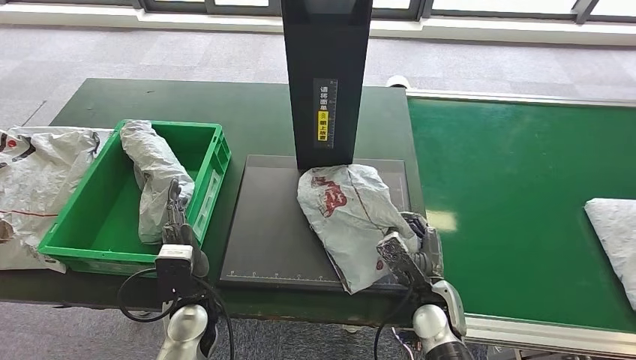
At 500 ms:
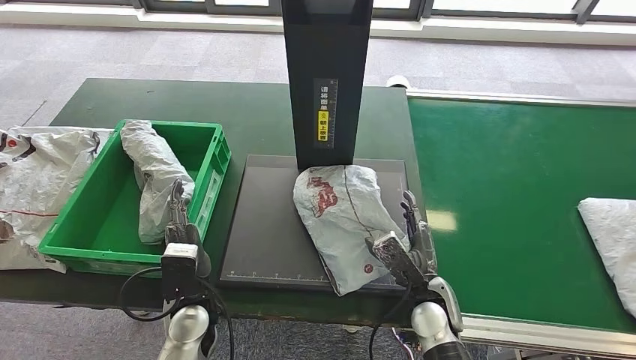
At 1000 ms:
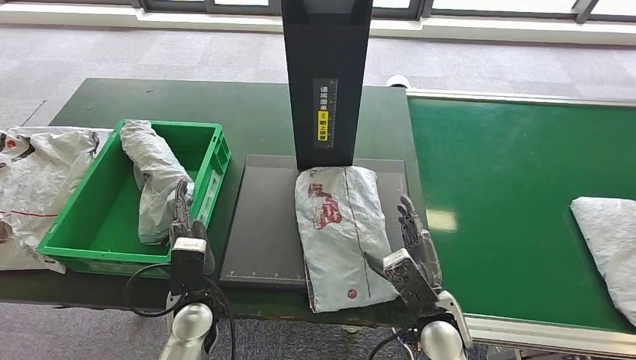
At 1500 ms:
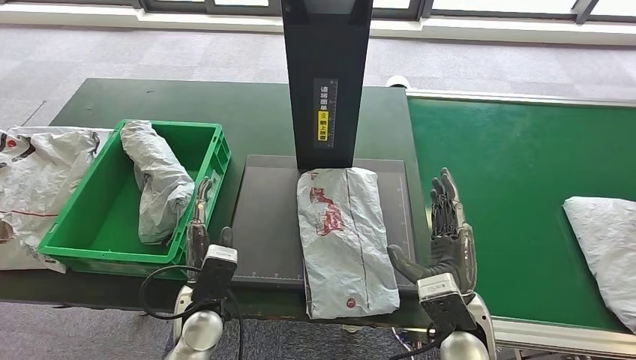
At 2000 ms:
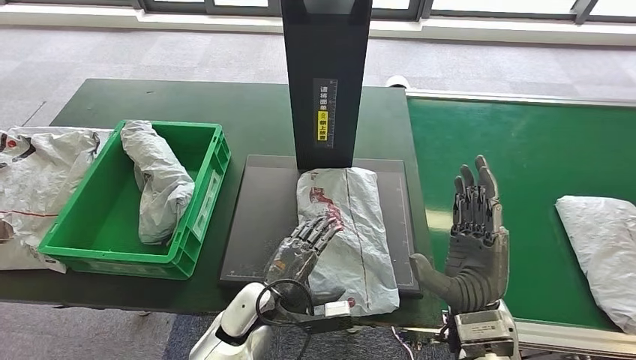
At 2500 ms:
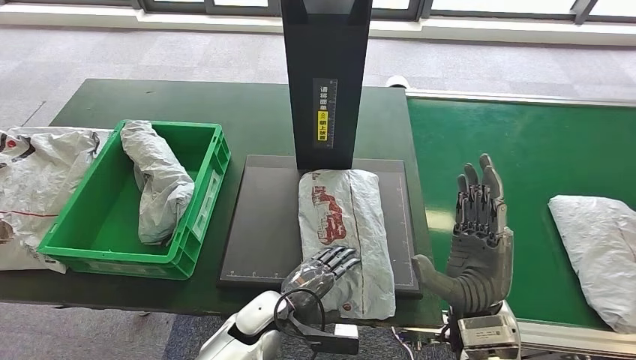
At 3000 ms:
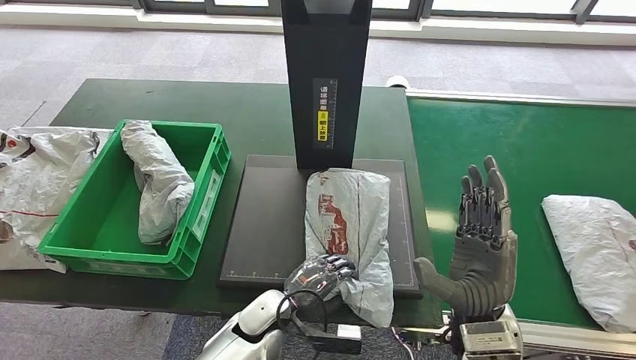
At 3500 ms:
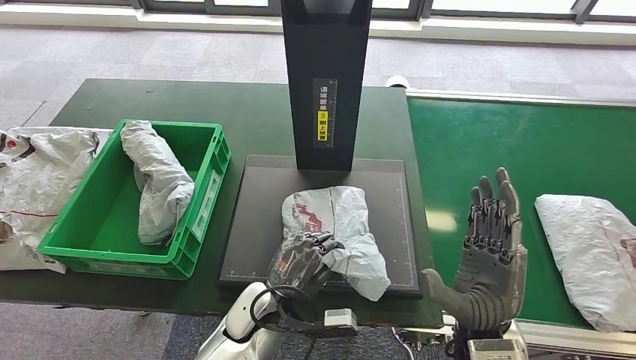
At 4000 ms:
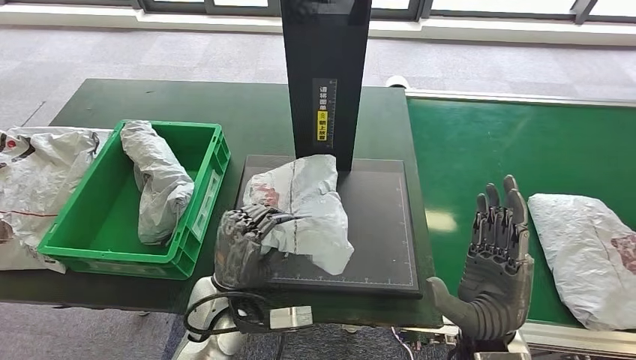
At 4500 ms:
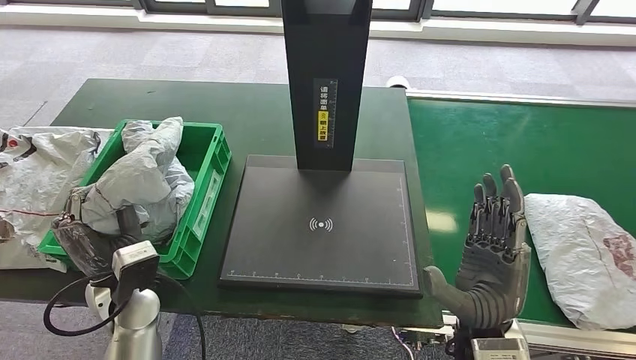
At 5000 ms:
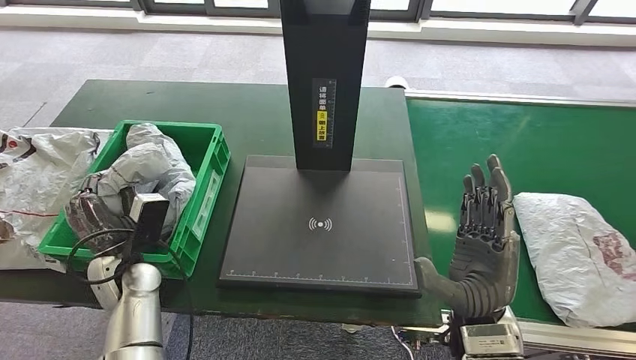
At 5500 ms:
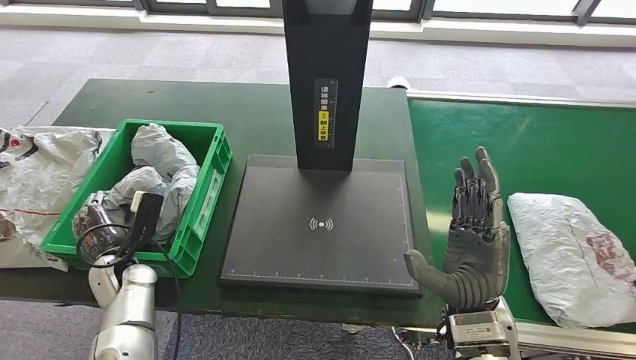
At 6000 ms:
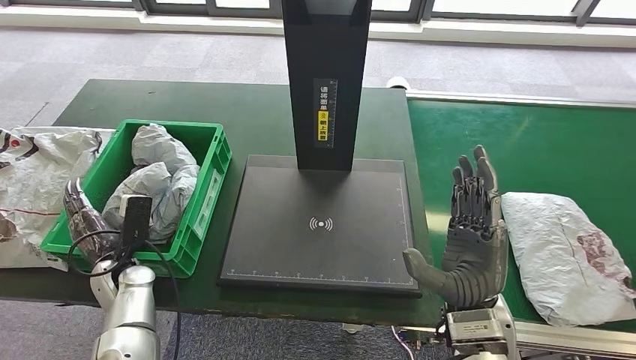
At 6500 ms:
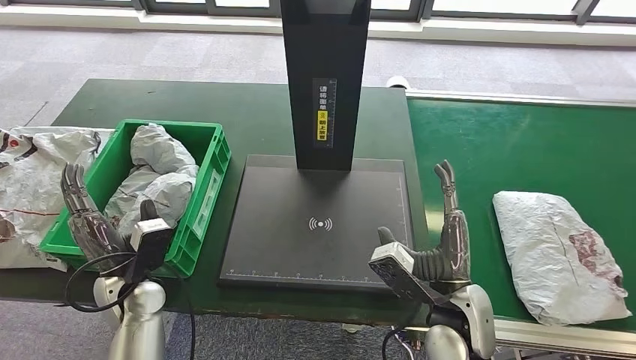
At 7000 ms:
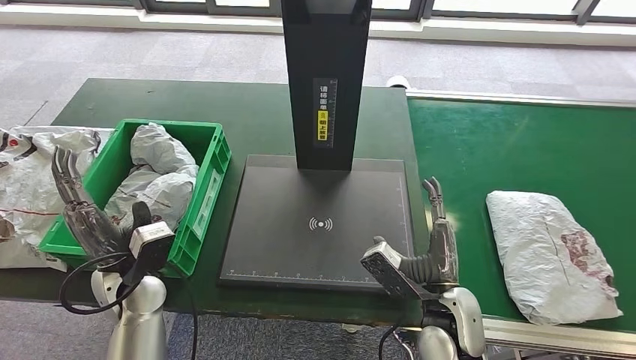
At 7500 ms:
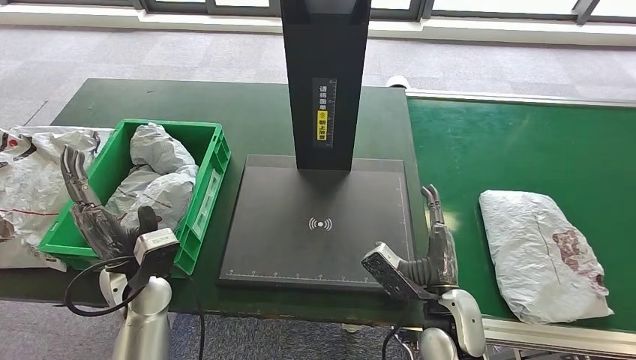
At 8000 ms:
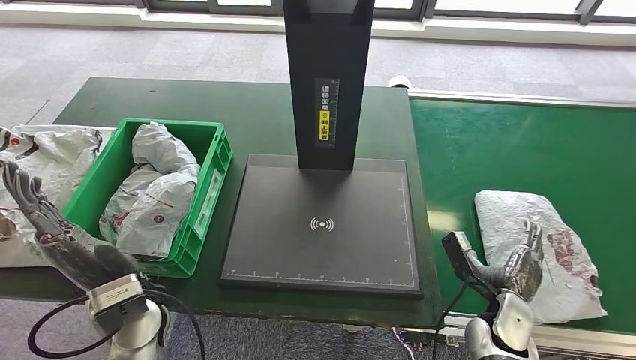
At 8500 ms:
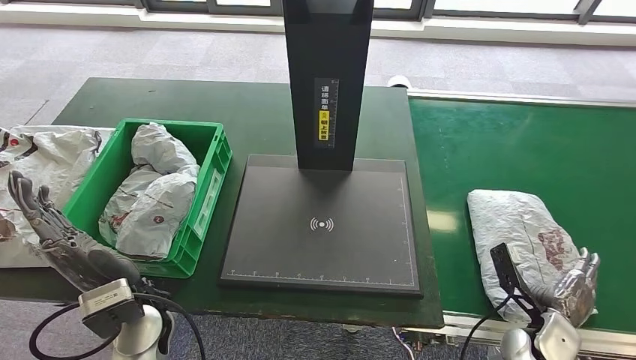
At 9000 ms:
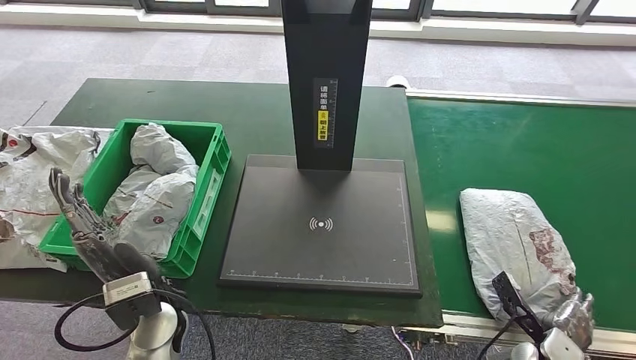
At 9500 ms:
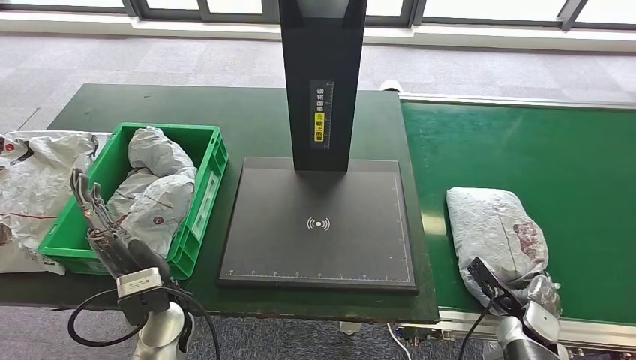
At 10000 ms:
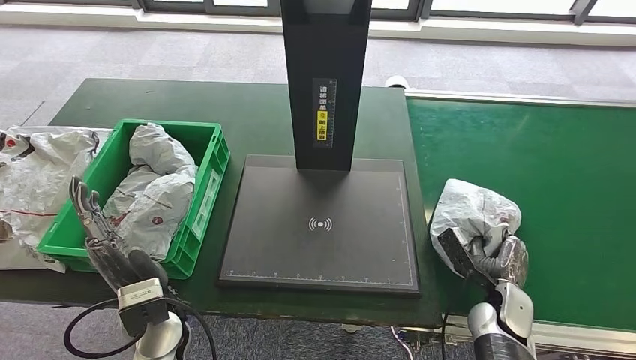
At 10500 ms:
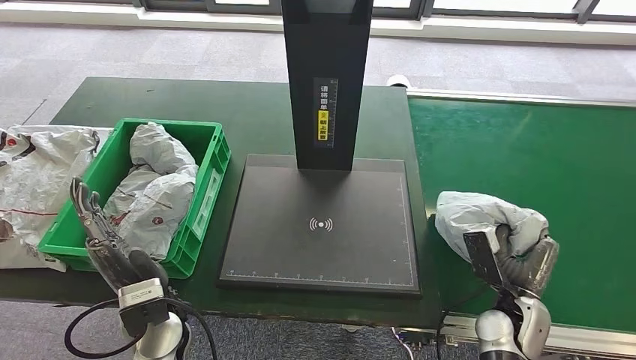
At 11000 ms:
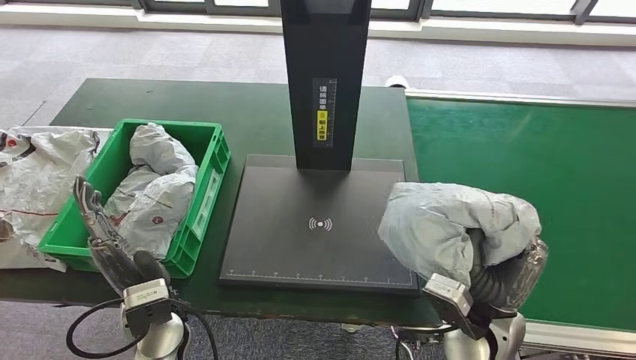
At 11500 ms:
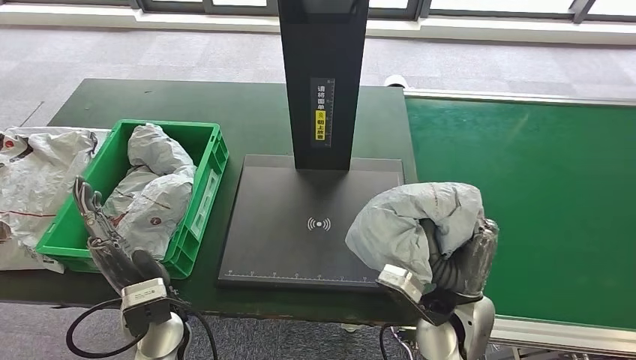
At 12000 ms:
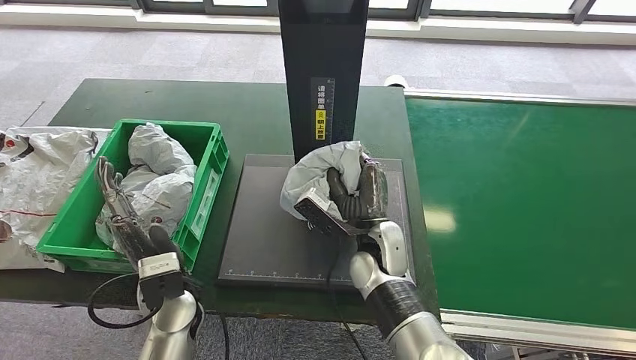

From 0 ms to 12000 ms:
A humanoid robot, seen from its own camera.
Step, from 0 ms to 2000 ms: Place the parcel onto the inbound machine.
Step, from 2500 ms to 4500 ms: Pick up the parcel from the inbound machine.
Step, from 5000 ms to 7000 ms: Place the parcel into the delivery box.
Step, from 8500 ms to 10500 ms: Pick up the parcel from the conveyor belt.
From 0 ms to 2000 ms: The left hand goes approximately 10 cm to the right. Meanwhile the right hand is displaced upward by about 15 cm.
From 2000 ms to 4000 ms: The left hand goes approximately 5 cm upward.
From 8000 ms to 10000 ms: The right hand reaches approximately 10 cm to the right, then returns.

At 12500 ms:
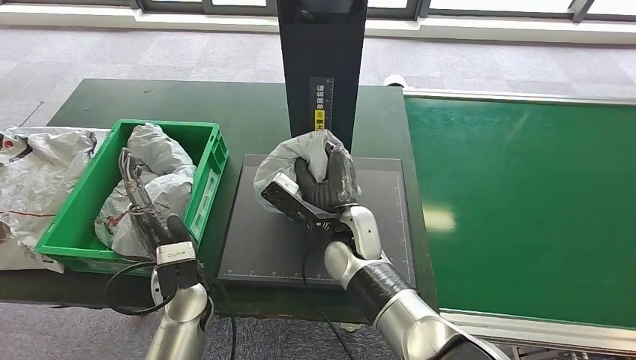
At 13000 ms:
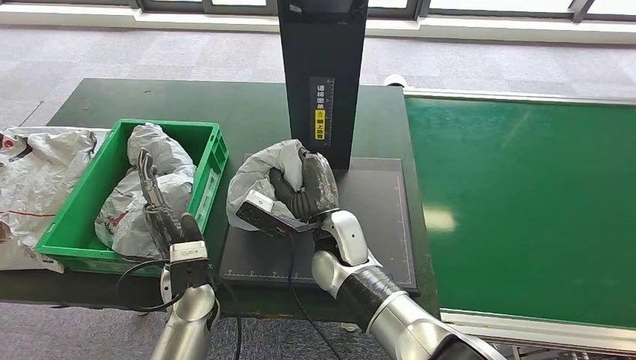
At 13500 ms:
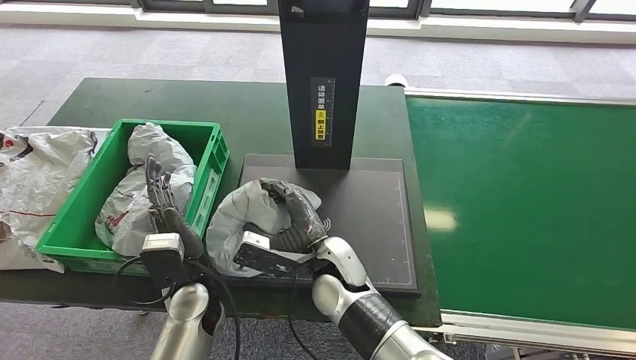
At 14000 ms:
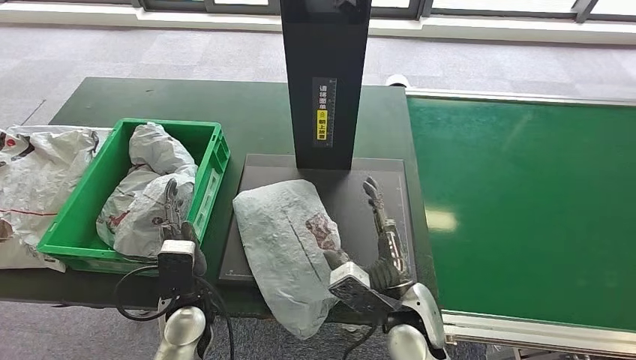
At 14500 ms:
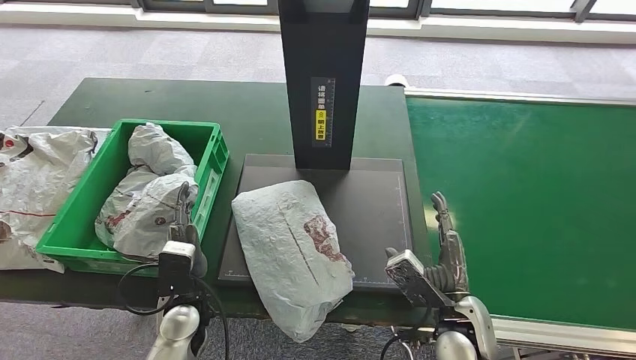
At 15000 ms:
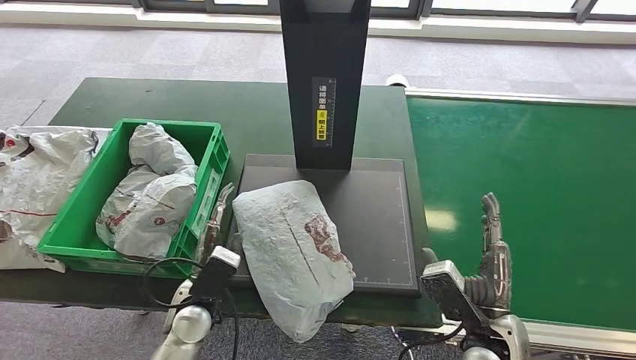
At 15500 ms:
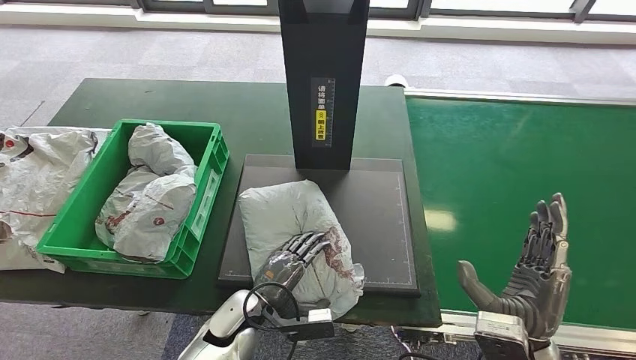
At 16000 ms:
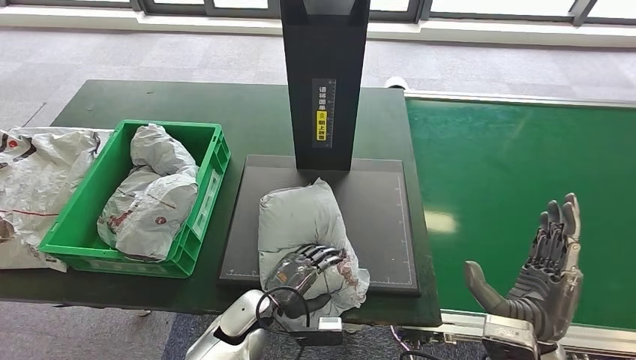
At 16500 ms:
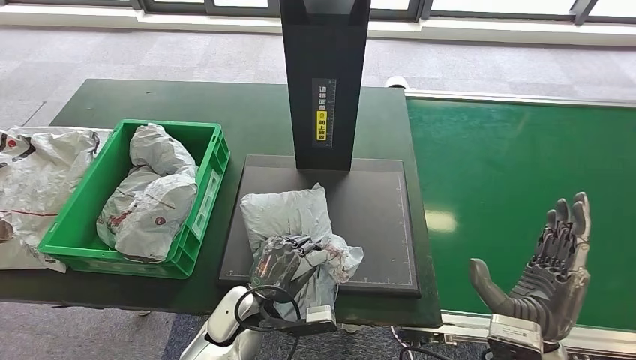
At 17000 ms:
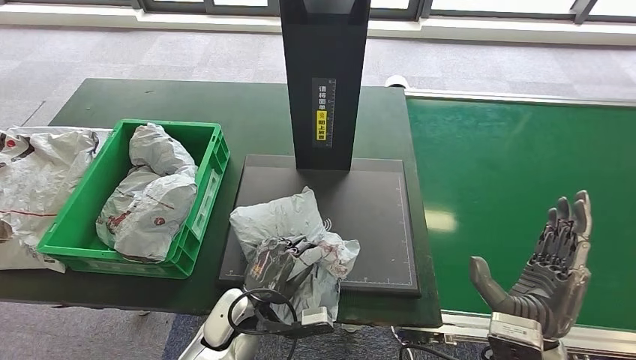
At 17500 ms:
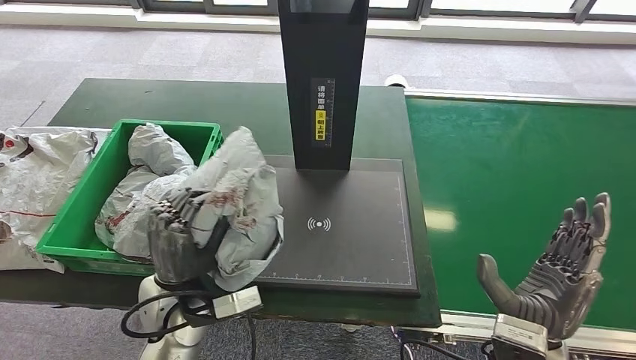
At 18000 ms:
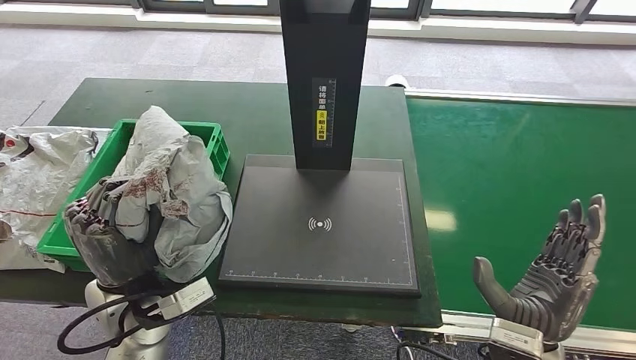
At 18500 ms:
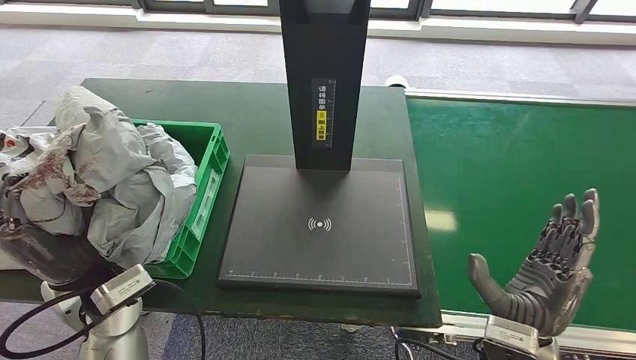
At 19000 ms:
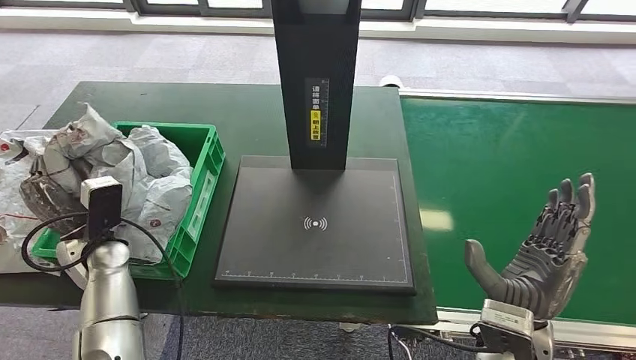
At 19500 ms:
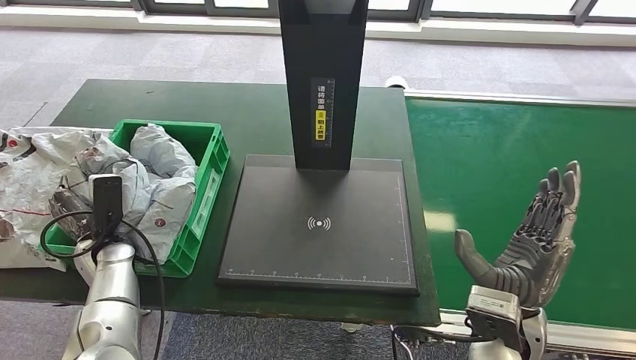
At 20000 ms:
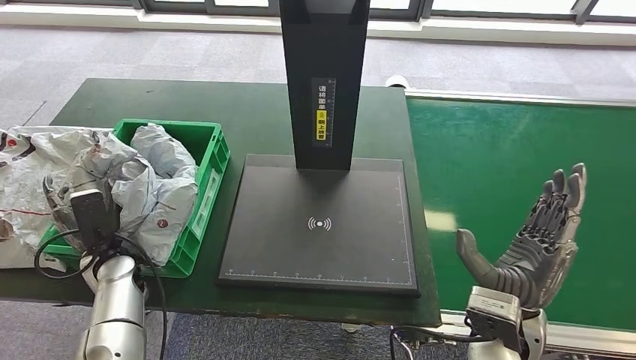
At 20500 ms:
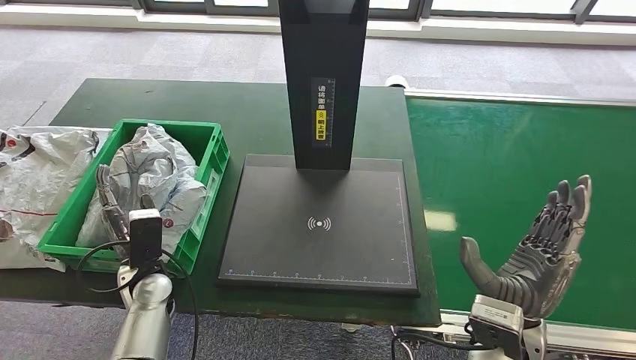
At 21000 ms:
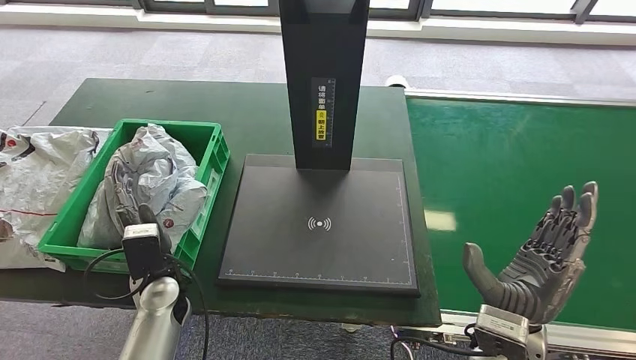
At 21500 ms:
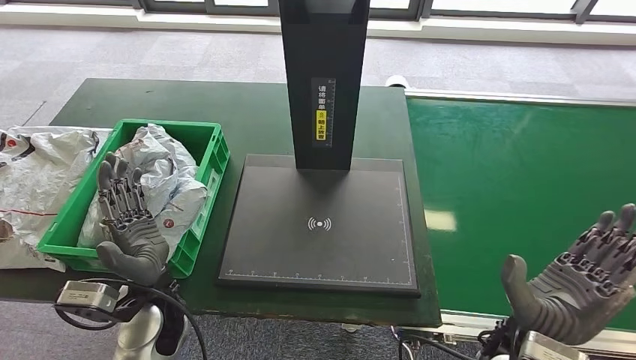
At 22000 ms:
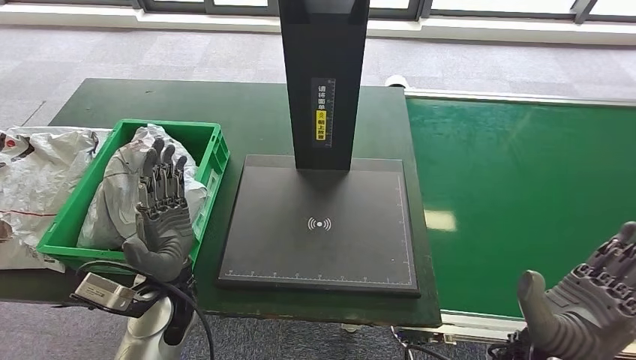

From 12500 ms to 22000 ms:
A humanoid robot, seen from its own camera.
Step, from 15500 ms to 18500 ms: Pick up the parcel from the inbound machine.
Step, from 19500 ms to 22000 ms: Place the parcel into the delivery box.
From 12500 ms to 14500 ms: The right hand goes roughly 20 cm to the right and backward. The left hand travels downward by approximately 5 cm.
From 18000 ms to 20000 ms: The left hand heads to the left, downward and forward, covering about 20 cm.
From 20000 ms to 22000 ms: The left hand heads to the right, upward and backward, covering roughly 20 cm.
